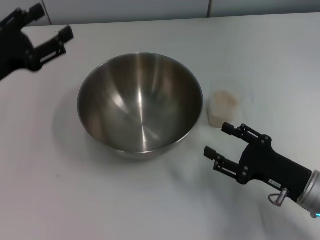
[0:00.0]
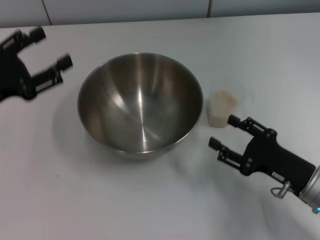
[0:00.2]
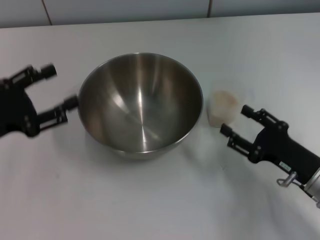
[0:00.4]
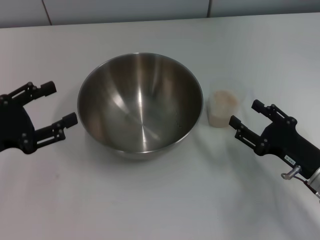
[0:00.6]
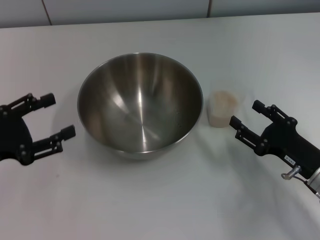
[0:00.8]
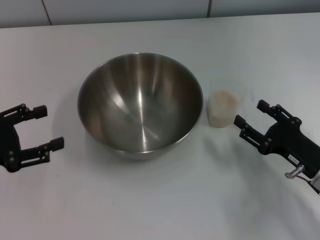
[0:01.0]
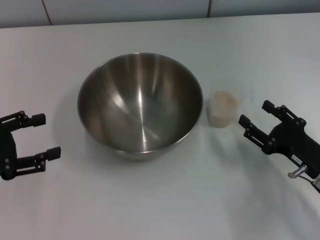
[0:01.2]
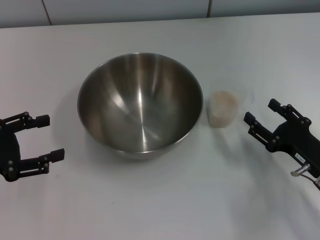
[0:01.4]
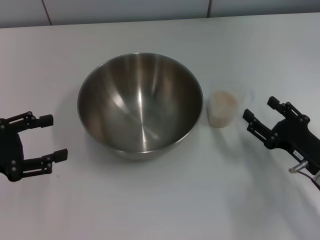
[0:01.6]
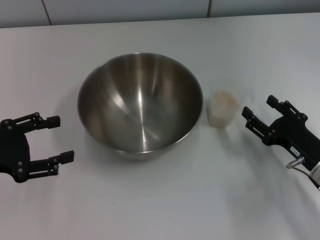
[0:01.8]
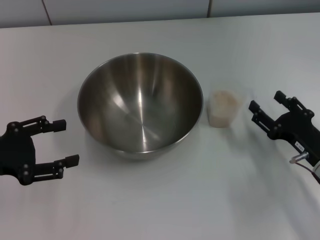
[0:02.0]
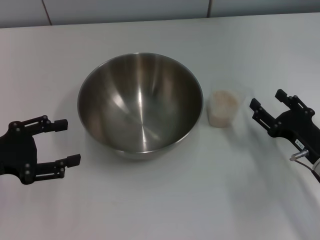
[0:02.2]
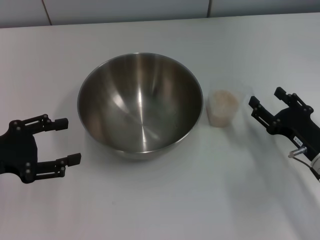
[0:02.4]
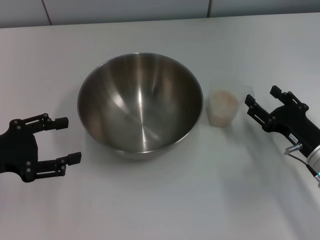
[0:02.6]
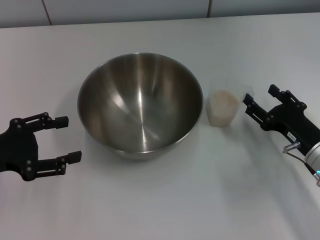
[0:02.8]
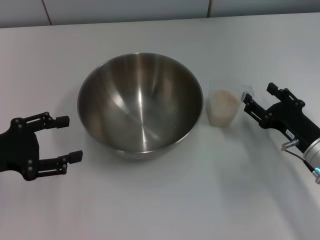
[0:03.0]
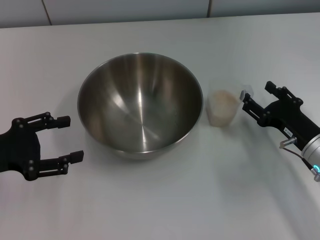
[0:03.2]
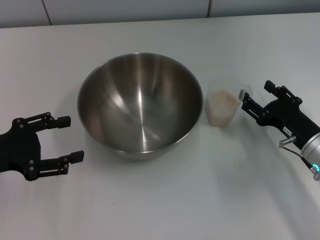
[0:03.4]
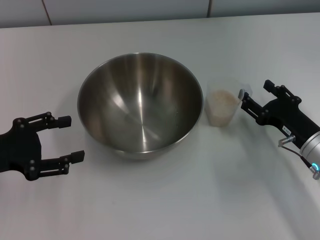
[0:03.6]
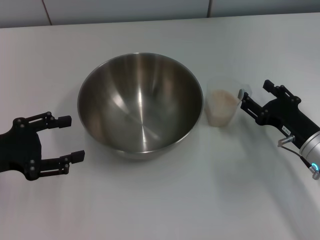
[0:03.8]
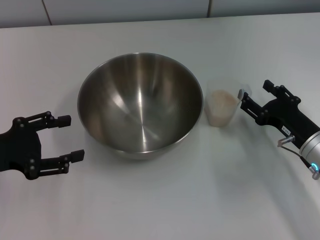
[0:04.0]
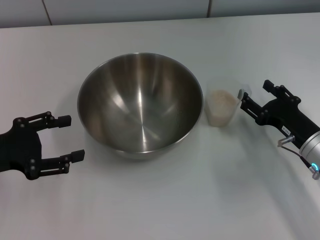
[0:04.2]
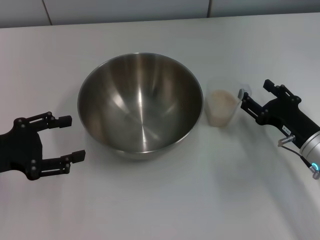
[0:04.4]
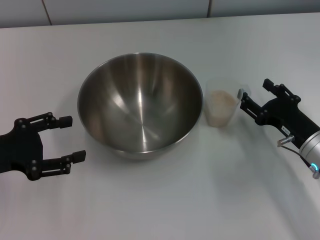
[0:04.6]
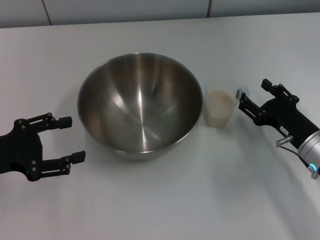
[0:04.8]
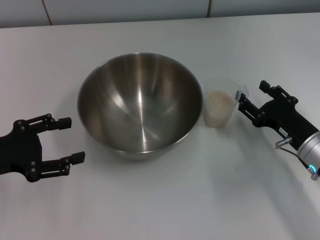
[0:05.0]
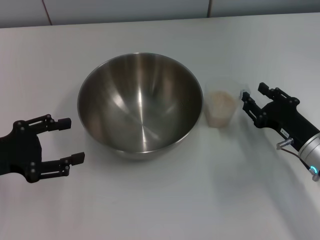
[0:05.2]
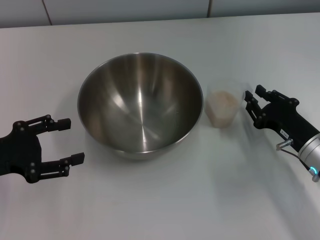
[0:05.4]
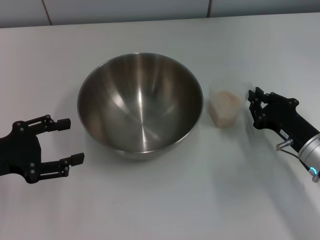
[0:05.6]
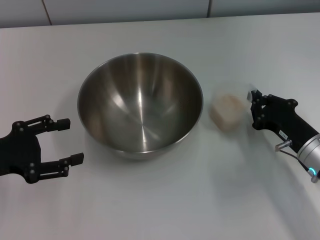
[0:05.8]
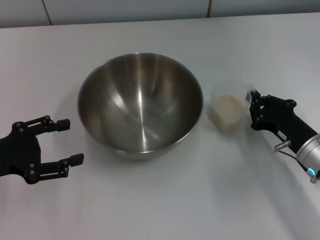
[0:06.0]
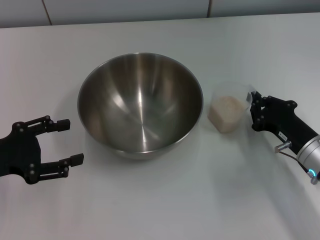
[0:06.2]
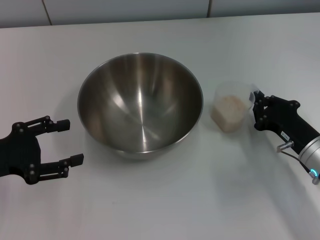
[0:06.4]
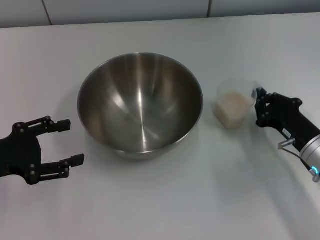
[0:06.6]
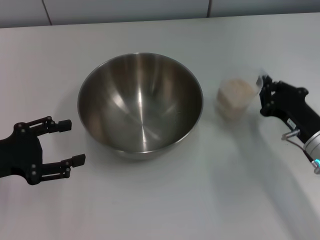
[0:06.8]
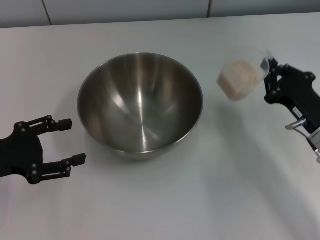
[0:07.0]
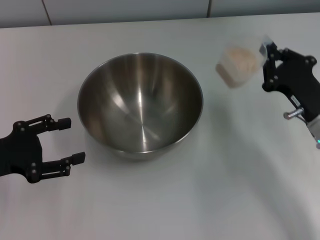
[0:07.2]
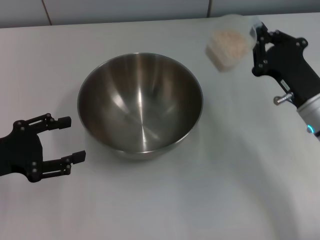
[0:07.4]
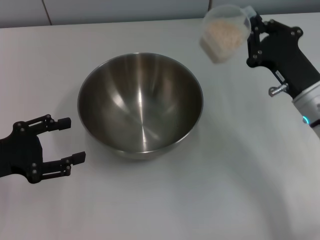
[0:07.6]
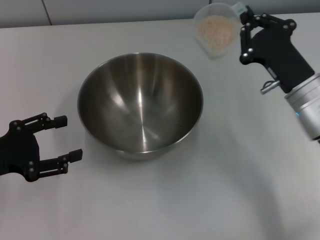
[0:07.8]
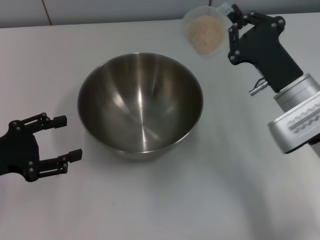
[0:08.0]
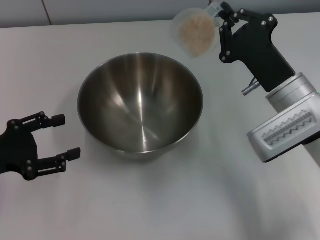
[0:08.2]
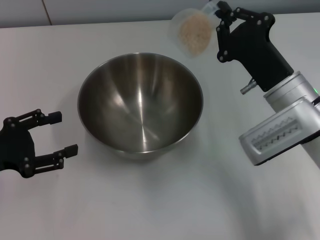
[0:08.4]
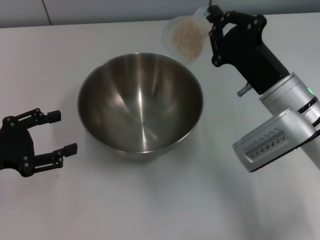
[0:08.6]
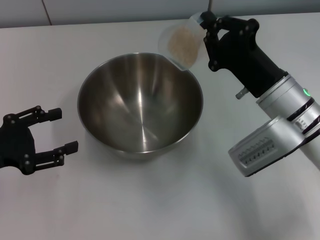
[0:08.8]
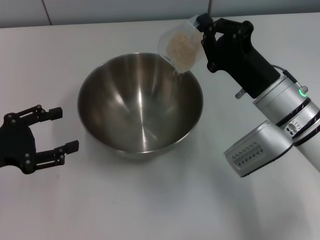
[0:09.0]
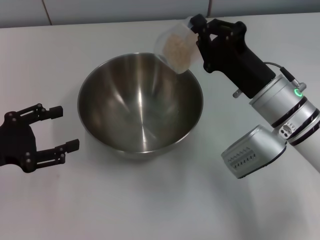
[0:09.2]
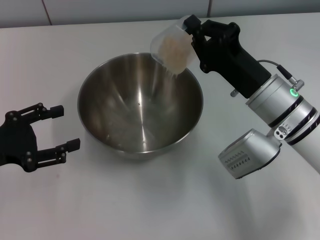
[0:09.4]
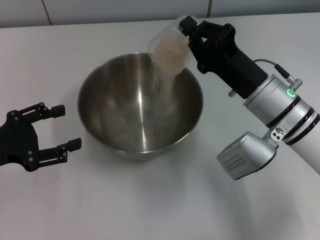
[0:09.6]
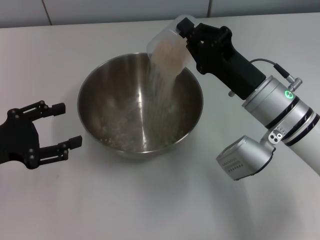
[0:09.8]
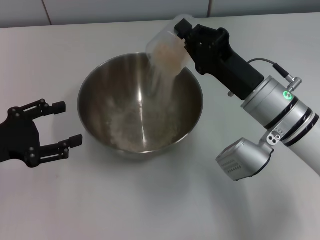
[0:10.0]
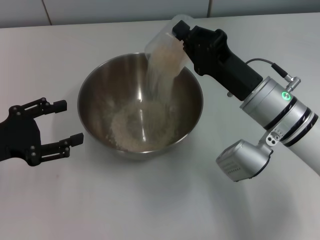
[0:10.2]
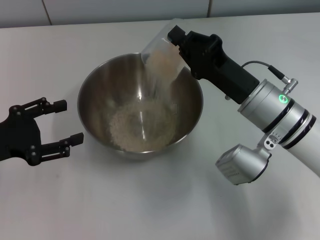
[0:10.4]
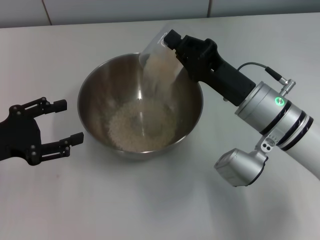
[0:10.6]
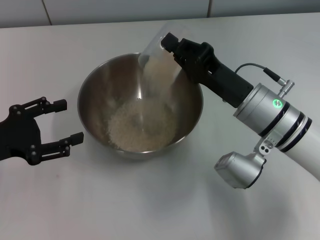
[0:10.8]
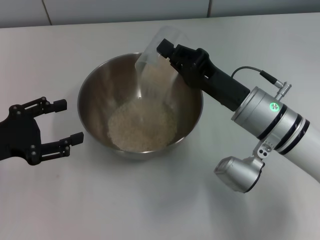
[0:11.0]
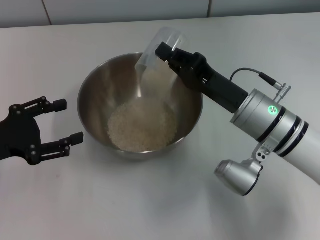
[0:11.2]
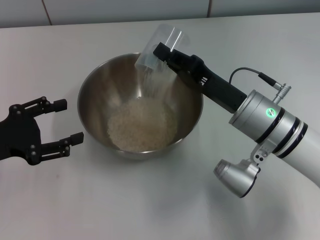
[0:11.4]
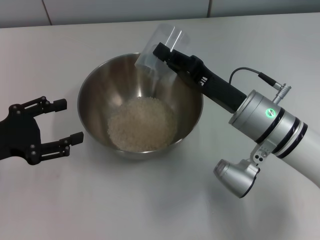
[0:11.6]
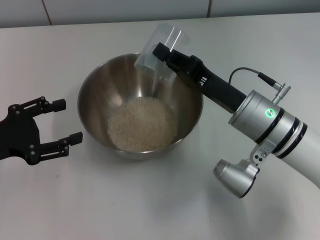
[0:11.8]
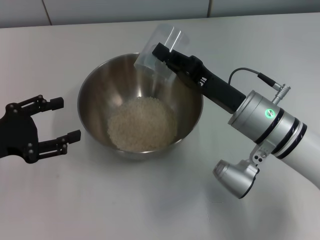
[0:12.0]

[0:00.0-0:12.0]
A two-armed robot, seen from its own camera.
Task of the whole recording: Place the bowl in the middle of the table with one hand and pour the rice from the grain cup into it with the other hand.
Step, 0:00.6 to 0:07.2: Pick up the cup with rice in it with the right gripper.
0:00.0 to 0:01.6: The left gripper shifts some 5 cm backward.
0:01.6 to 0:03.0: There are only small adjustments of the grippers.
0:03.0 to 0:04.4: The two grippers keep their place.
0:04.4 to 0:06.0: The right gripper closes up.
0:06.0 to 0:07.6: The right gripper travels upward by roughly 5 cm.
0:07.6 to 0:09.0: The right gripper heads to the left, covering approximately 5 cm.
0:10.4 to 0:12.0: The grippers make only small movements.

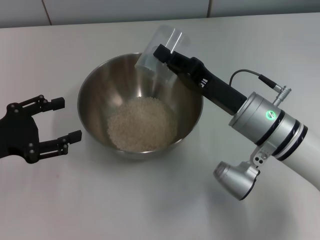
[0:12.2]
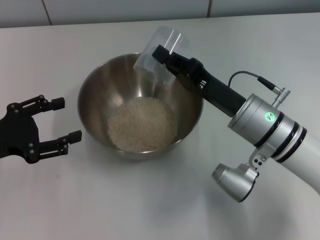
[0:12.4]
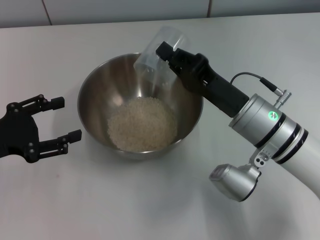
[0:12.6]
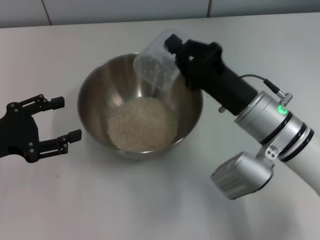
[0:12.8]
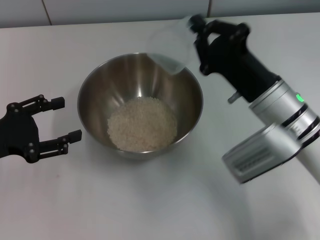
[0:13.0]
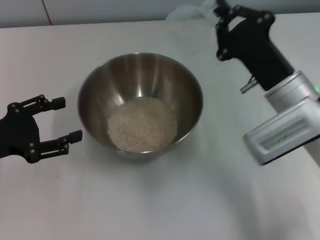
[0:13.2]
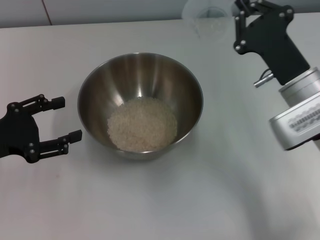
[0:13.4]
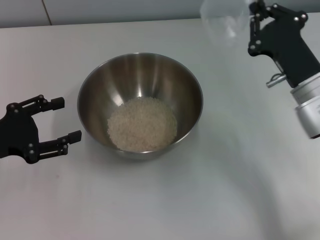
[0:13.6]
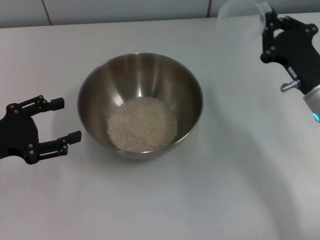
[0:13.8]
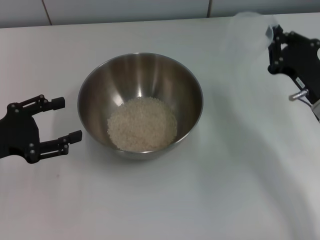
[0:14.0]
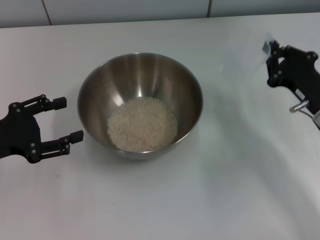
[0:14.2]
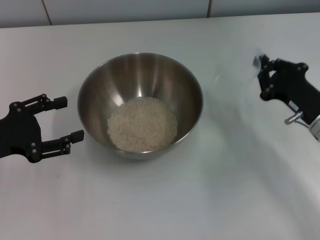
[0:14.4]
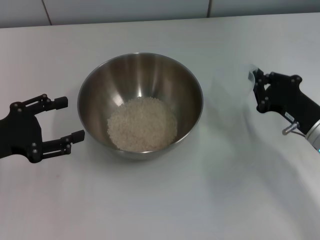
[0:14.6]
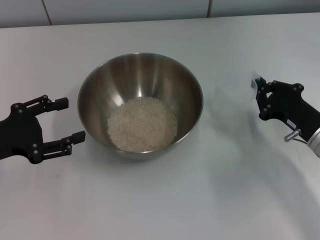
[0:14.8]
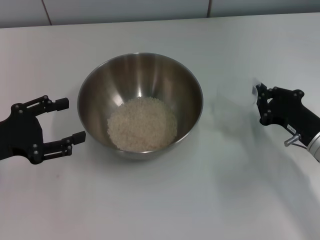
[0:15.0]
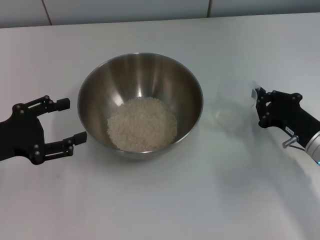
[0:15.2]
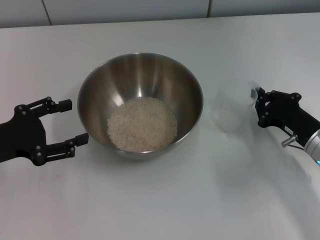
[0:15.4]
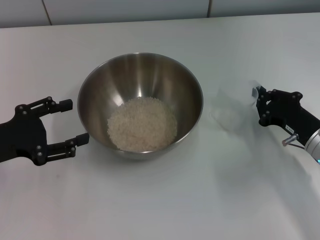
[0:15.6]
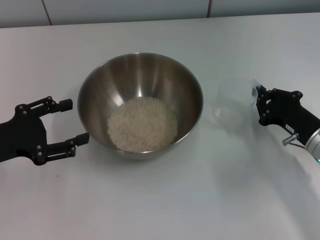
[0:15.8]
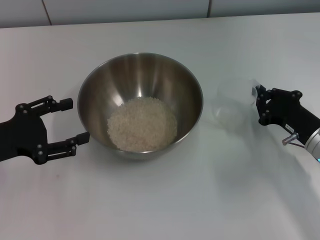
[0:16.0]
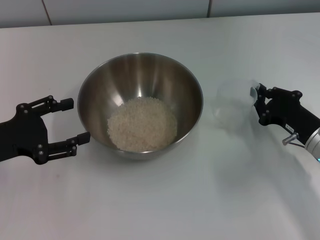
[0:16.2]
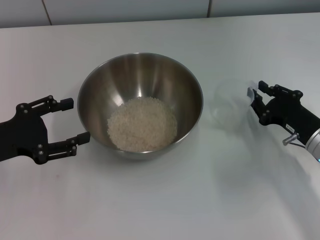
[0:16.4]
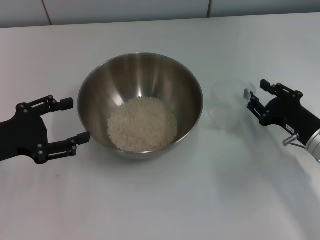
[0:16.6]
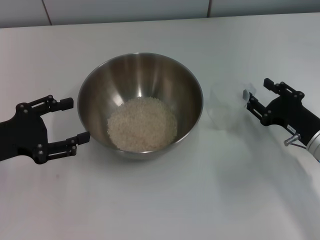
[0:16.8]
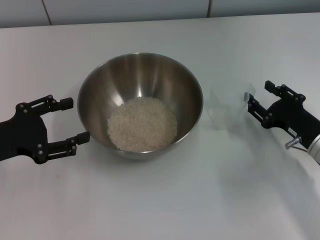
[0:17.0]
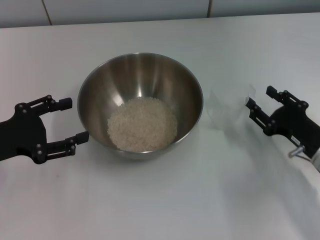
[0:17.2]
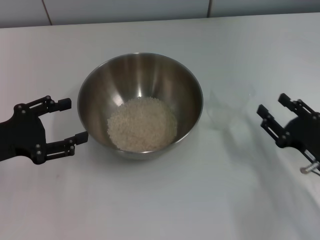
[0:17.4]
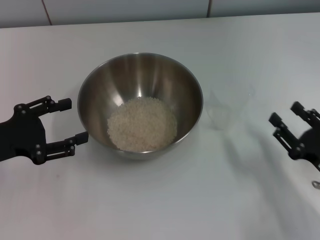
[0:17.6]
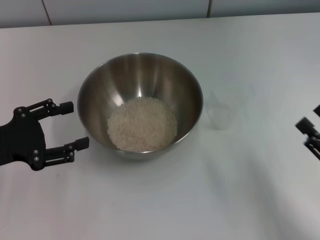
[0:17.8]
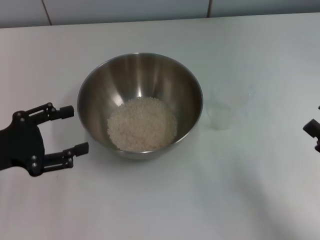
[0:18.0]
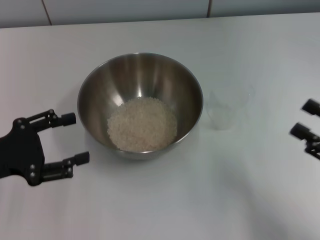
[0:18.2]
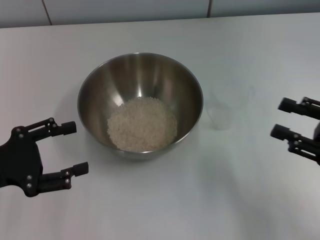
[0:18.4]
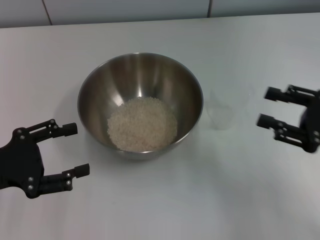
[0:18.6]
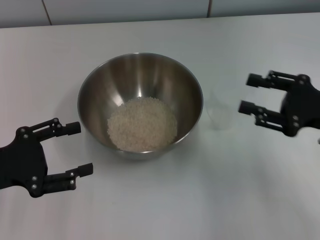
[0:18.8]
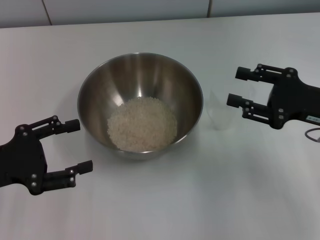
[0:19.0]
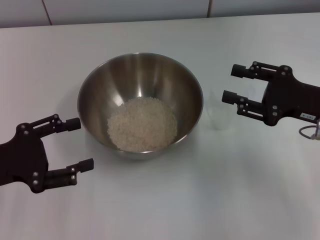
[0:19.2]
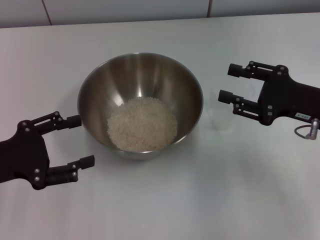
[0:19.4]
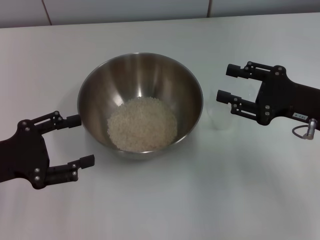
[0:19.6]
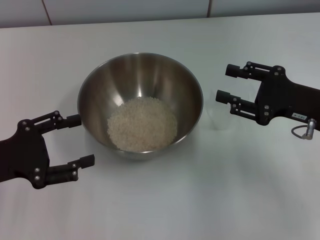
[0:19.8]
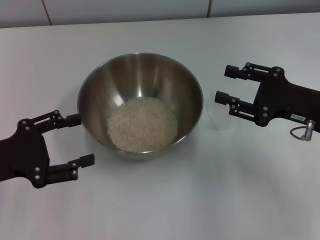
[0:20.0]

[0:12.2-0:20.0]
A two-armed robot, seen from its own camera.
Task of the whole recording: Place the bowl in the middle of the table with one hand and pour the rice from the grain cup into it with the other hand.
Step, 0:13.8 to 0:17.8: Place the cup on the table with the right gripper.
0:12.2 to 0:13.8: The right gripper travels to the right by some 10 cm.
0:13.8 to 0:15.4: The right gripper travels downward by roughly 5 cm.
0:15.4 to 0:16.8: The right gripper opens its fingers.
0:16.8 to 0:18.4: The right gripper moves upward, backward and to the right, approximately 10 cm.
0:18.4 to 0:20.0: The right gripper is displaced forward and to the left by approximately 10 cm.
